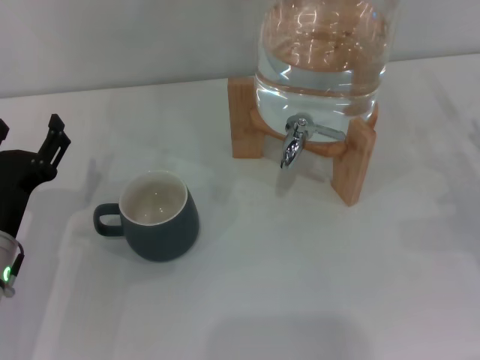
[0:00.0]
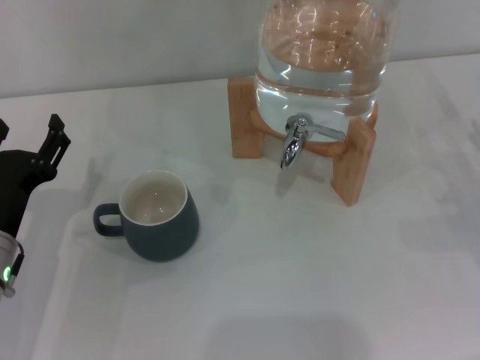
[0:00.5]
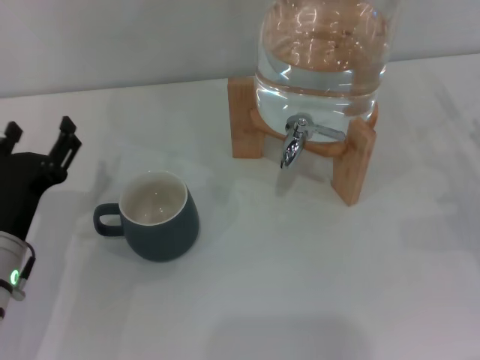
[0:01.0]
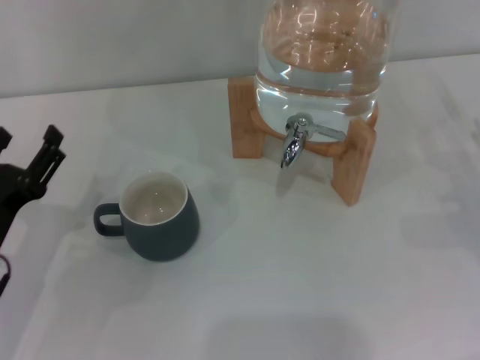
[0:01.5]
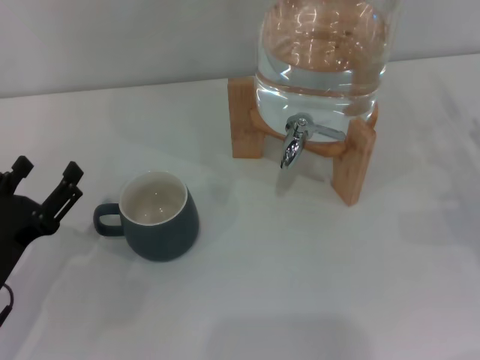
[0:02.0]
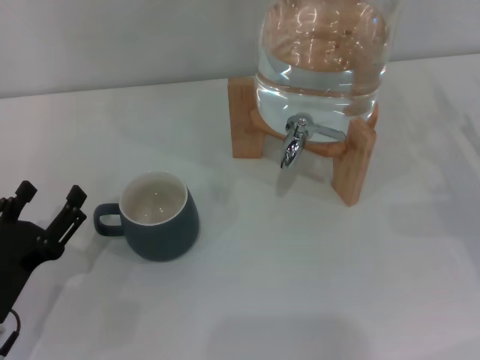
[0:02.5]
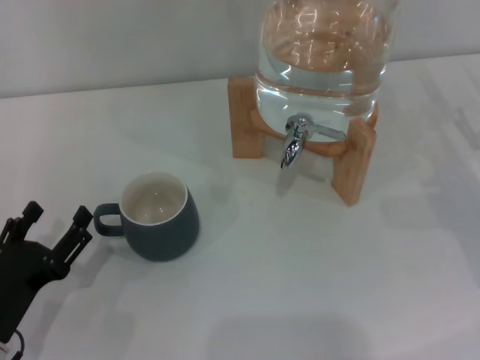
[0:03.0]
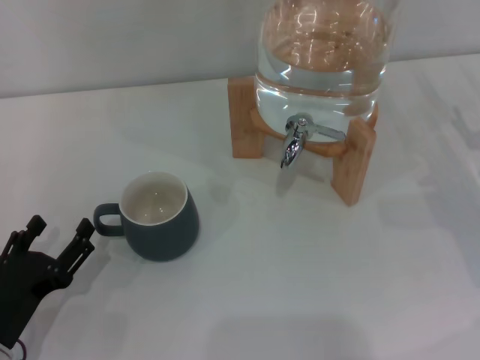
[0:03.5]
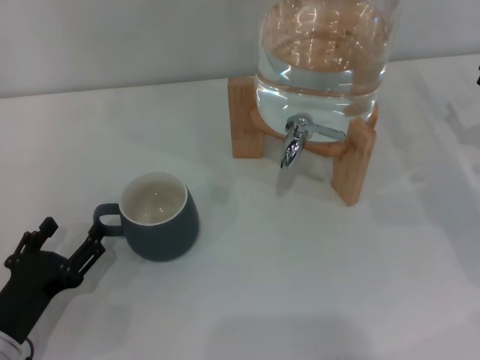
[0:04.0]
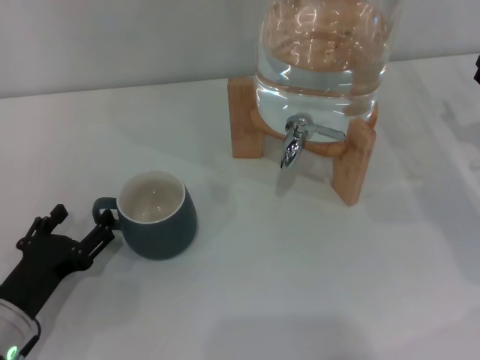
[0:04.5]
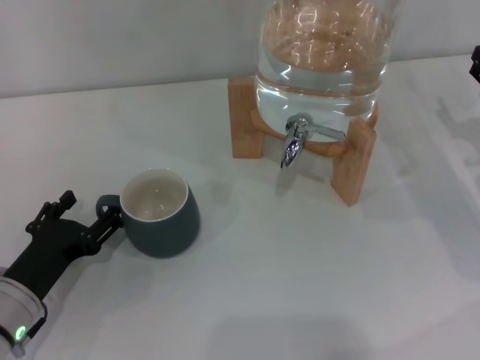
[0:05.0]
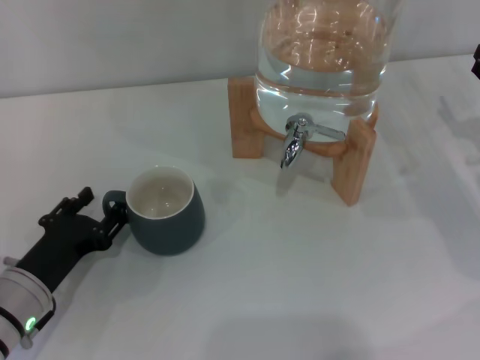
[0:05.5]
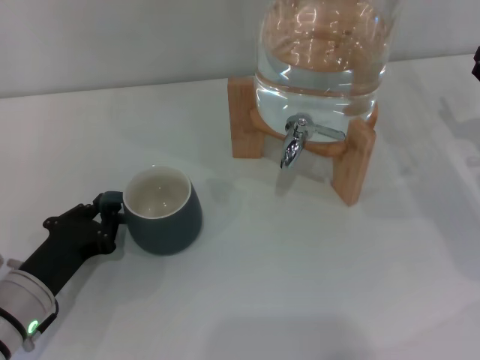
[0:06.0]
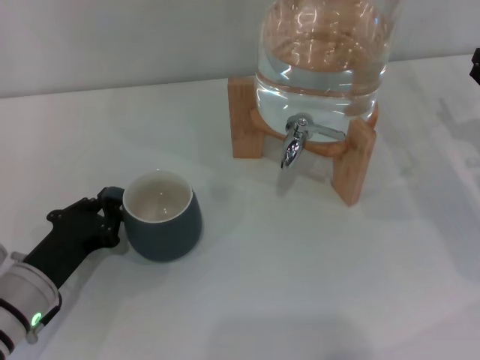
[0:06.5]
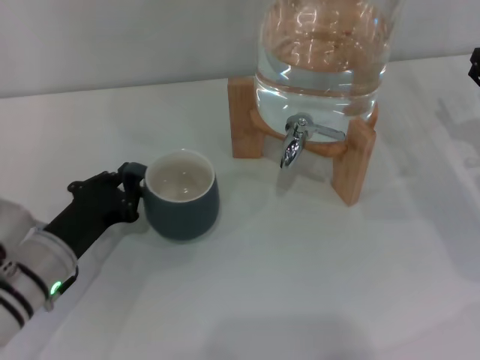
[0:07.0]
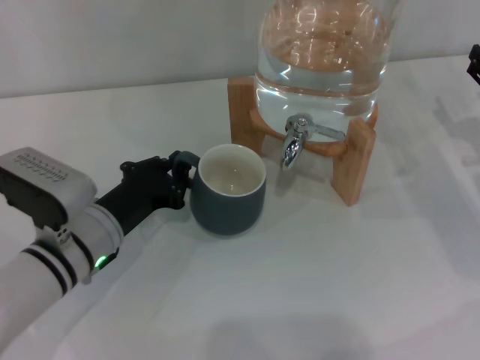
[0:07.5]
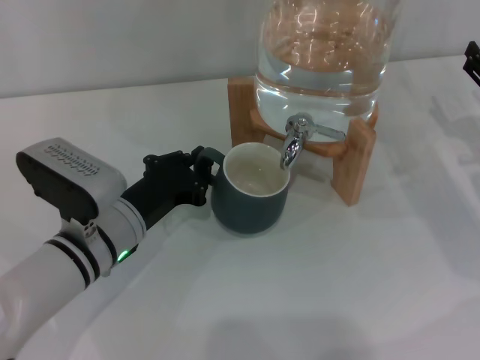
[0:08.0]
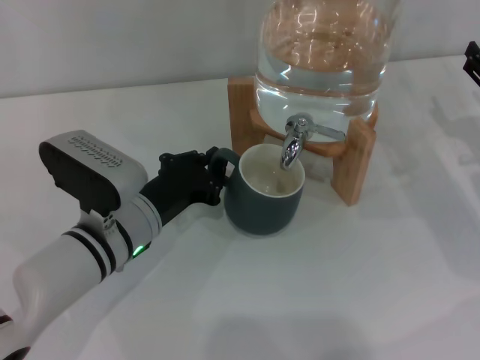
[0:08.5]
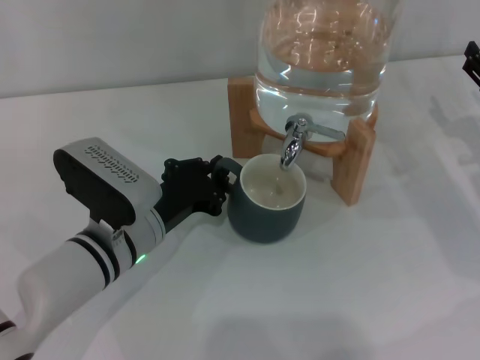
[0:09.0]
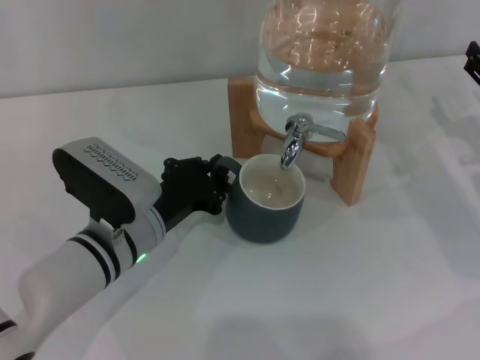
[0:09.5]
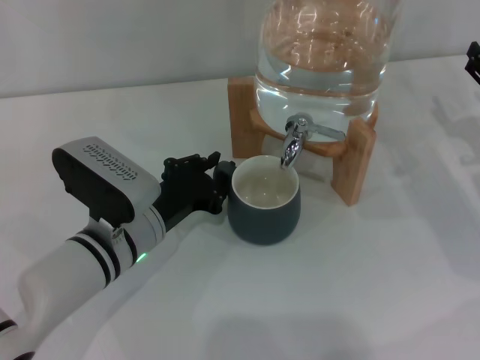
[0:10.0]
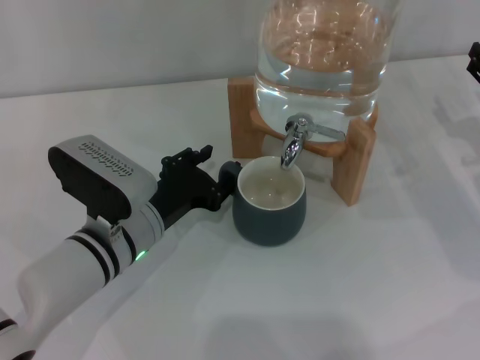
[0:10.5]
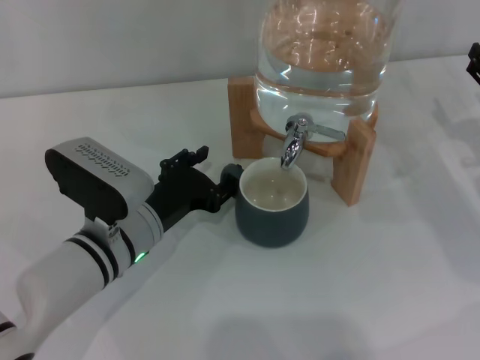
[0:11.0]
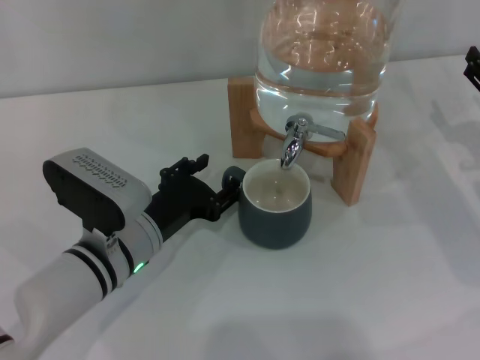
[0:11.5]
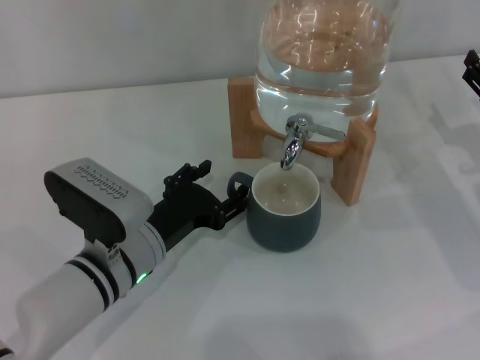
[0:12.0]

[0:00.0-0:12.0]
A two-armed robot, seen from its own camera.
Task of the whole recording: the left gripper pick up the black cup and place it horizontally under the faucet, the right gripper turn on the faucet to fill the cup, and then turn off the faucet.
0:00.0 to 0:02.0: The left gripper moves some 5 cm.
0:02.0 to 0:04.0: The left gripper moves approximately 5 cm.
0:04.0 to 0:06.0: The left gripper goes some 5 cm forward, and closes up.
0:06.0 to 0:08.0: The left gripper heads to the right and forward, covering roughly 10 cm.
0:08.0 to 0:10.0: The grippers move only a little.
0:10.0 to 0:12.0: The left gripper opens.

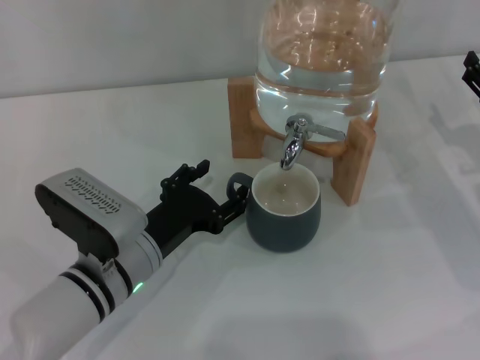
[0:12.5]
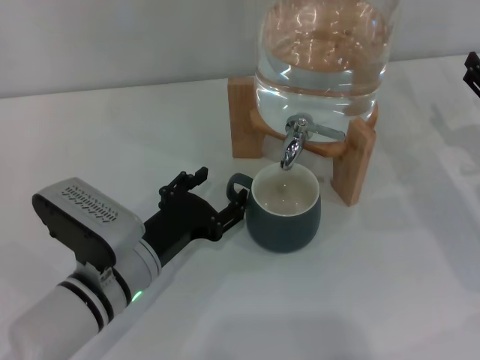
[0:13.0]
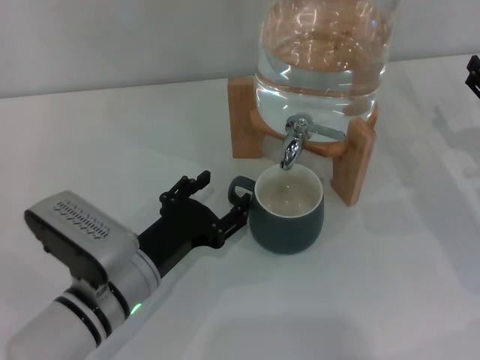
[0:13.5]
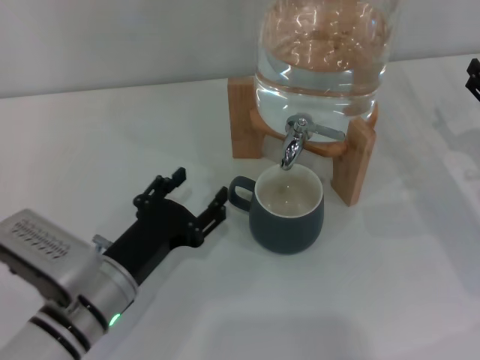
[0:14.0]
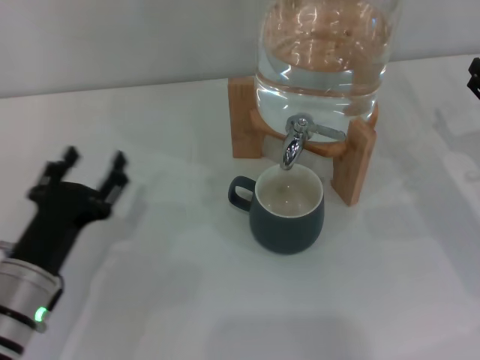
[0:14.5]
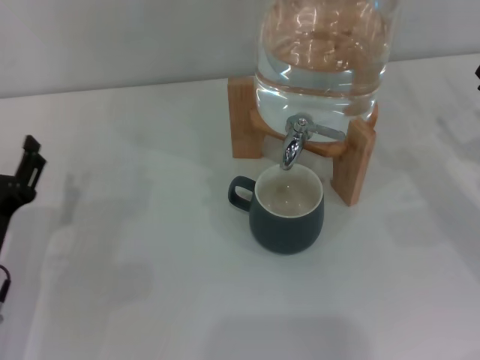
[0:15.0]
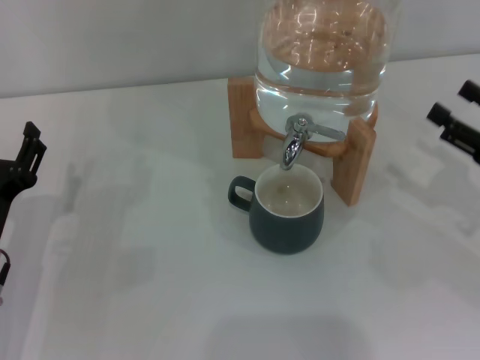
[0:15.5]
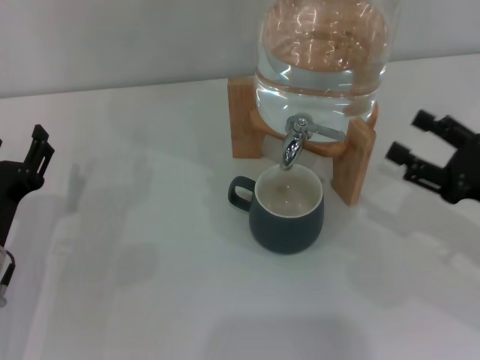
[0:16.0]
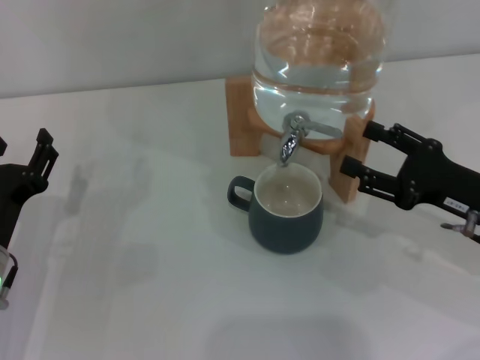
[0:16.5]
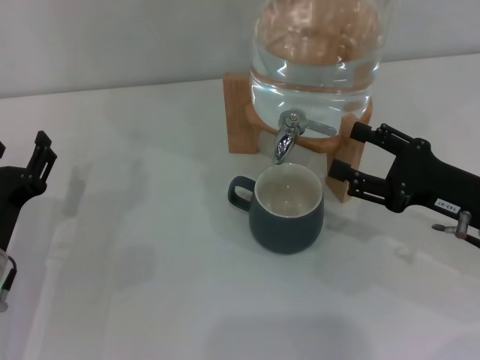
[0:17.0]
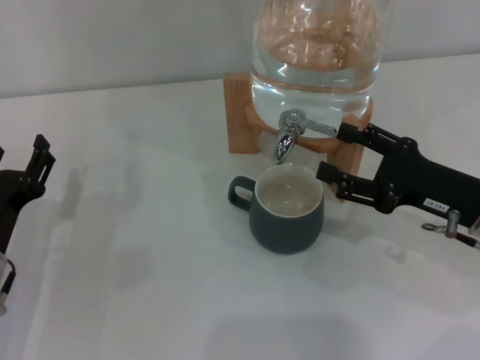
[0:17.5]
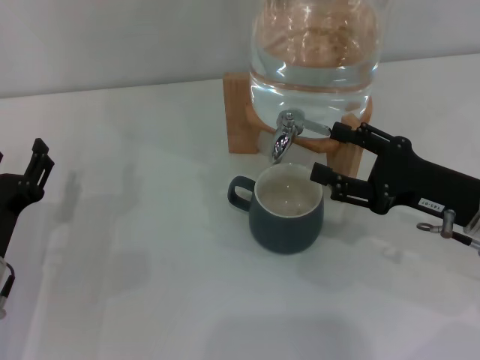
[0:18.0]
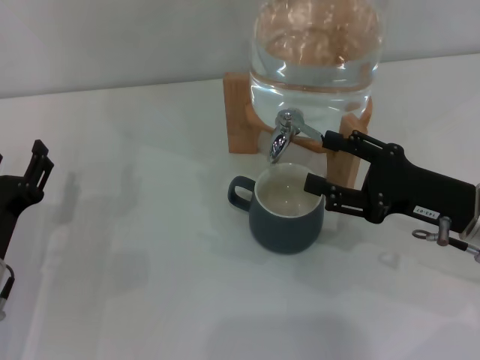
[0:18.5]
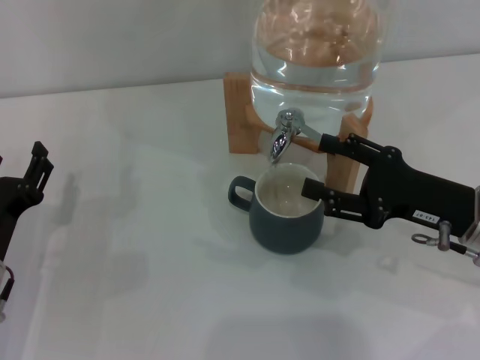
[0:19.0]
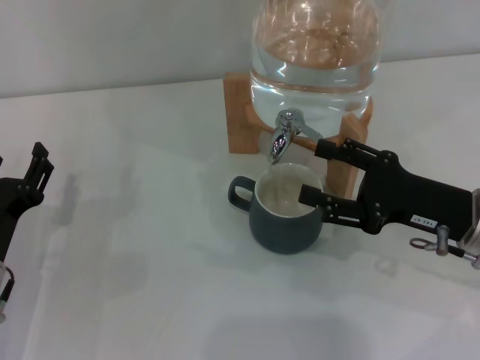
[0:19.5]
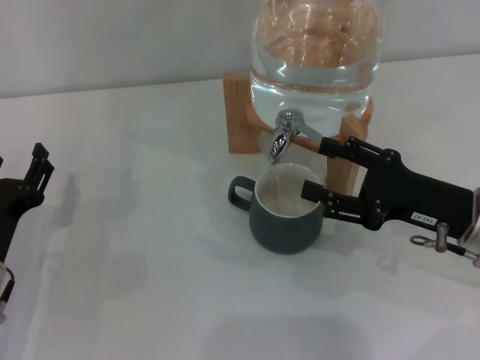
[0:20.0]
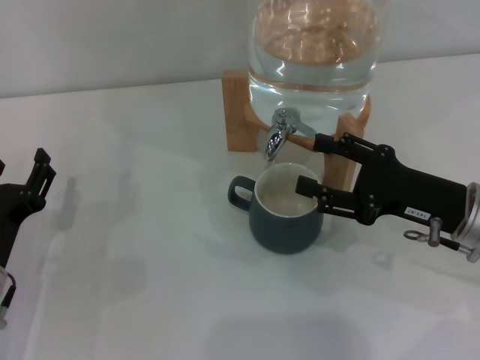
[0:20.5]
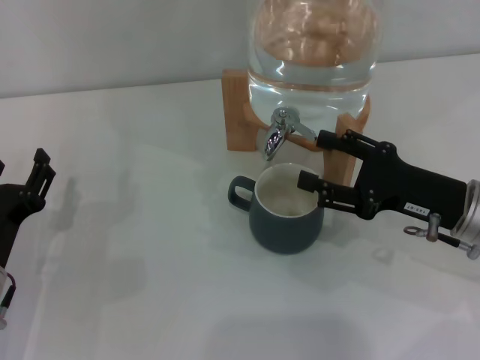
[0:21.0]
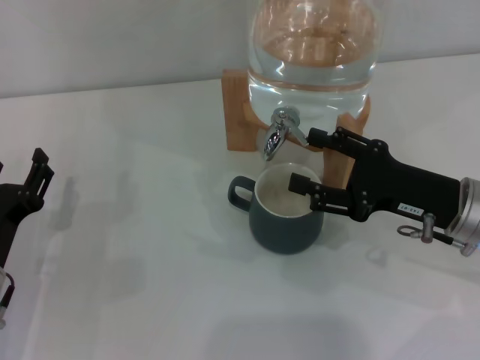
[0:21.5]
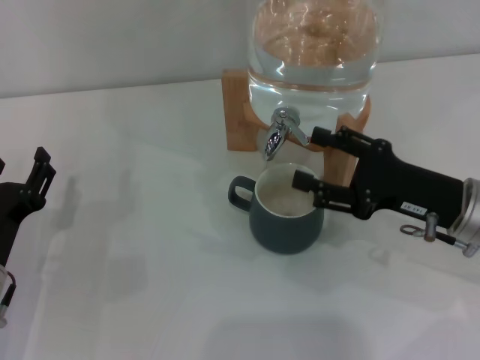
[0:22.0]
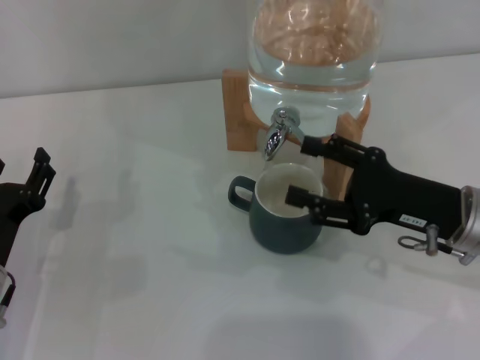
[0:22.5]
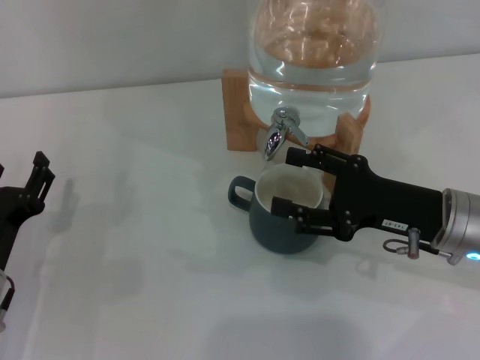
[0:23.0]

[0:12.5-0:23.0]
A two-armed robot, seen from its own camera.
Task of the whole recording: the left gripper pick up the black cup and place it horizontally under the faucet, the right gripper turn on the faucet to fill the cup, and then turn off the faucet.
Step, 0:14.0 to 0:22.0: Open the dispenser valve and fill the cup with water with the right gripper.
0:12.5 to 0:14.5: The left gripper goes about 10 cm to the left.
0:14.5 to 0:16.5: The right gripper is displaced to the left by about 5 cm.
0:16.5 to 0:19.0: The grippers make only small movements.
0:19.0 to 0:21.0: Both grippers stay about where they are.
0:21.0 to 0:23.0: The grippers stay close to where they were, moving slightly.

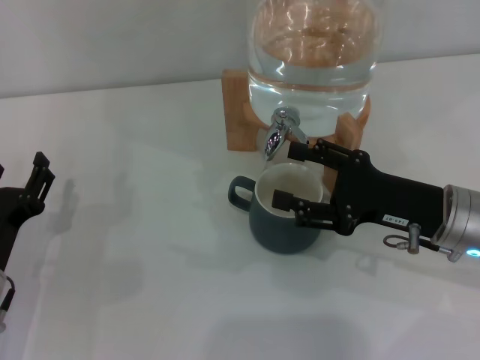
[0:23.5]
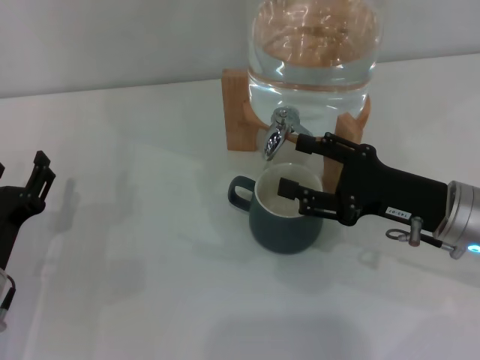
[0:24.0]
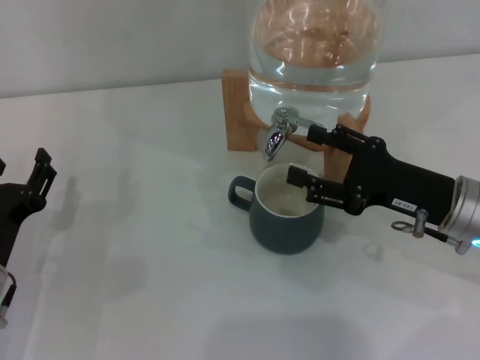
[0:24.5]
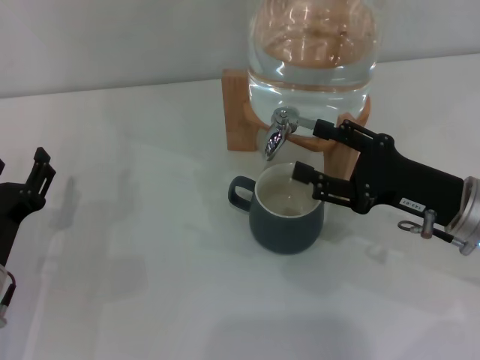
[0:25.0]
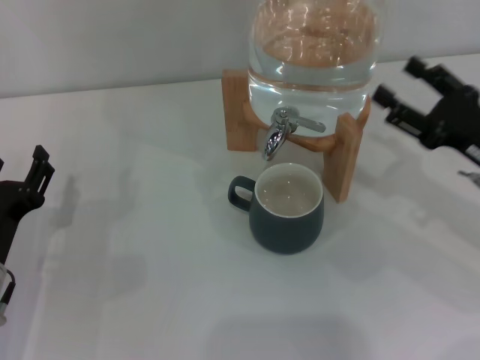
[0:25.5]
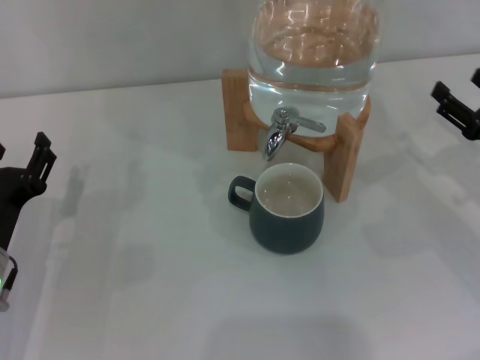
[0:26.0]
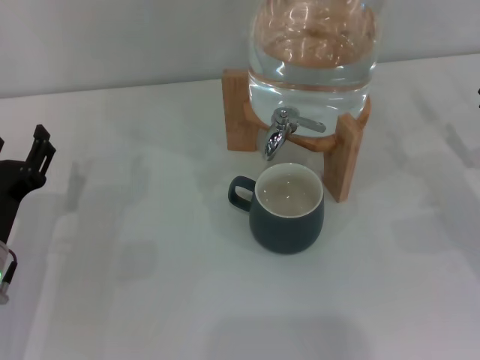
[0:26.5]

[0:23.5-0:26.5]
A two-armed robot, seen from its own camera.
Task of the whole recording: the left gripper pick up the black cup and place it horizontally under the faucet, the right gripper turn on the faucet to fill the cup, and then turn off the faucet.
Step, 0:23.5 to 0:25.0: Close the dispenser valve with the right gripper.
0:23.5 to 0:25.0: There are only small adjustments of the grippers.
0:25.0 to 0:26.5: The right gripper heads to the right, covering approximately 10 cm.
